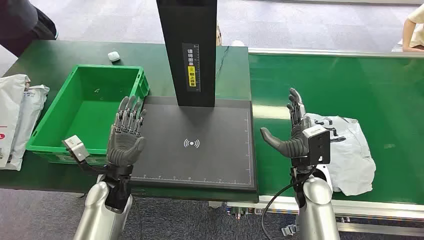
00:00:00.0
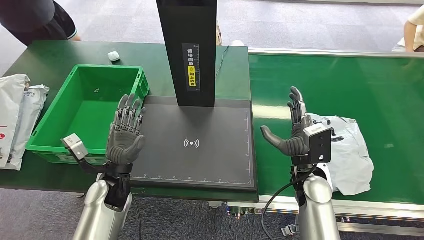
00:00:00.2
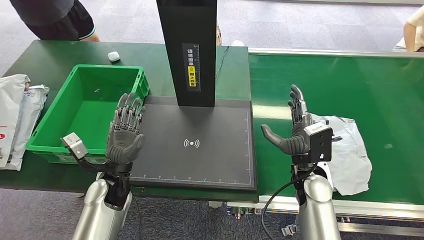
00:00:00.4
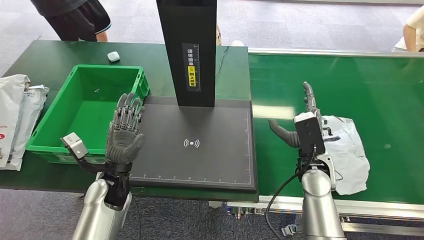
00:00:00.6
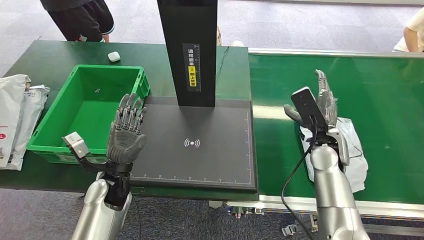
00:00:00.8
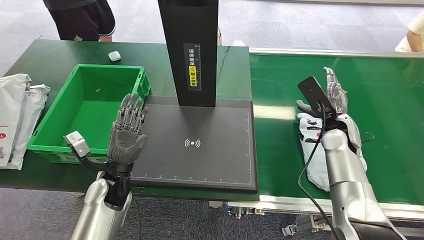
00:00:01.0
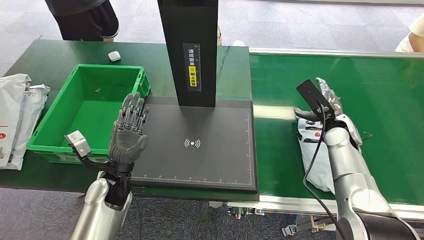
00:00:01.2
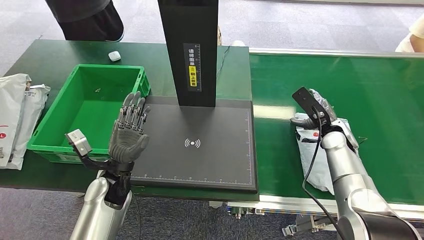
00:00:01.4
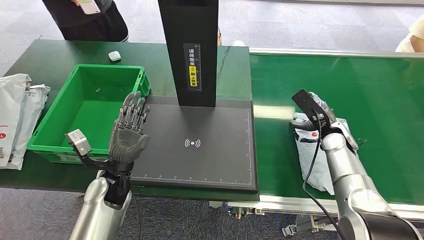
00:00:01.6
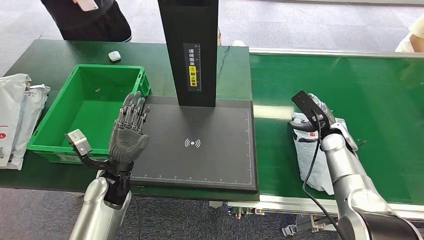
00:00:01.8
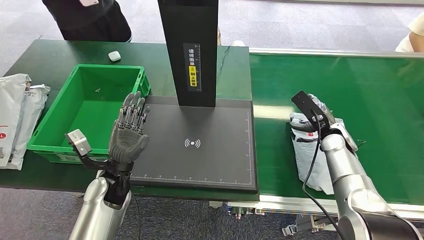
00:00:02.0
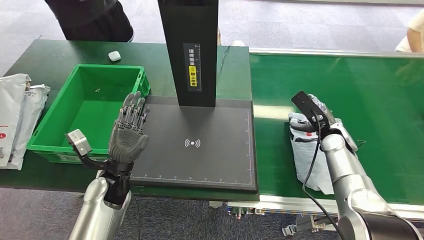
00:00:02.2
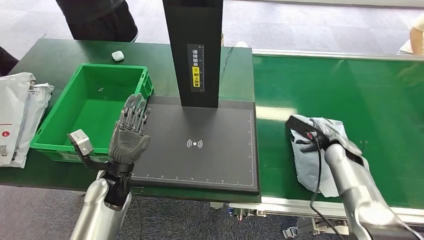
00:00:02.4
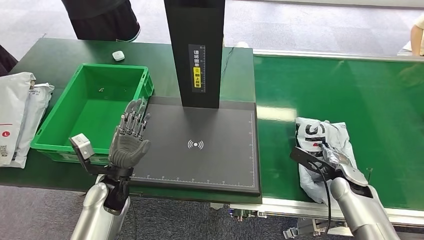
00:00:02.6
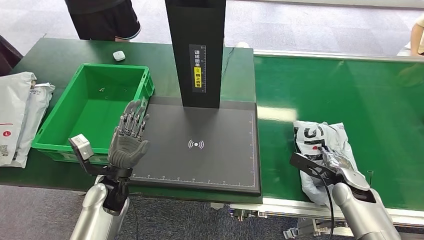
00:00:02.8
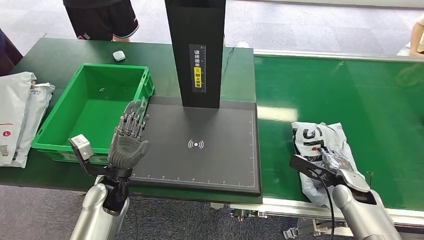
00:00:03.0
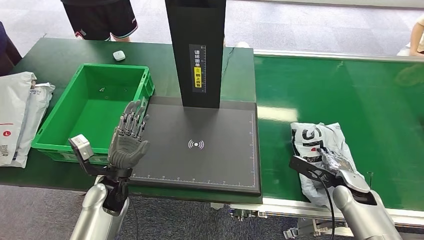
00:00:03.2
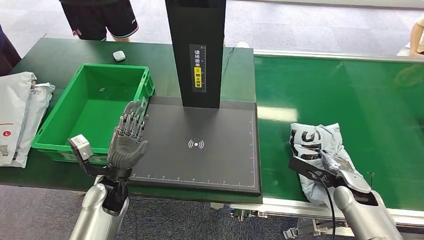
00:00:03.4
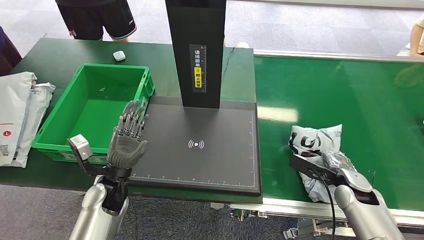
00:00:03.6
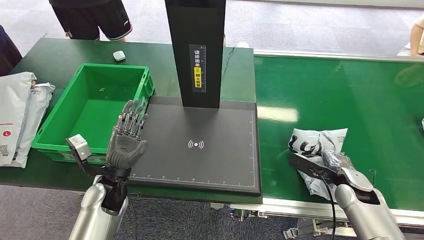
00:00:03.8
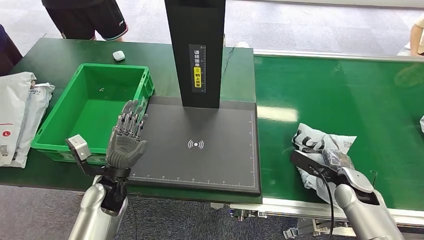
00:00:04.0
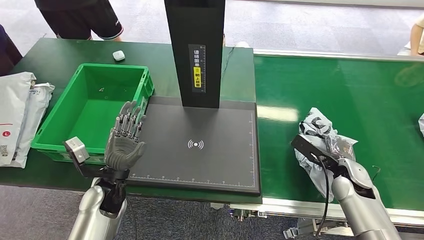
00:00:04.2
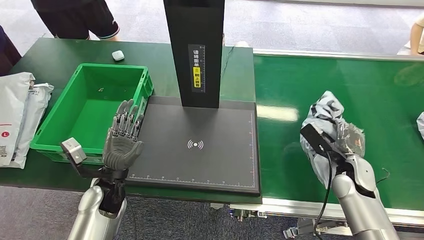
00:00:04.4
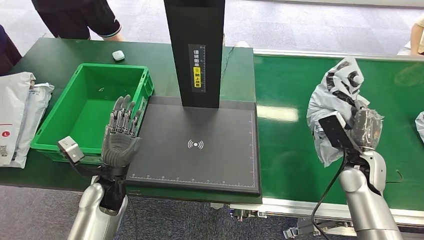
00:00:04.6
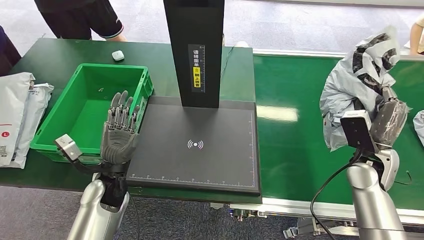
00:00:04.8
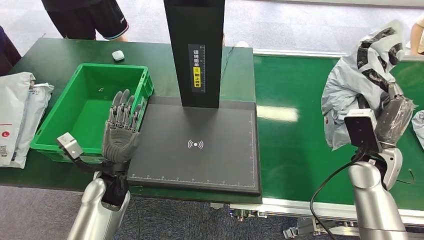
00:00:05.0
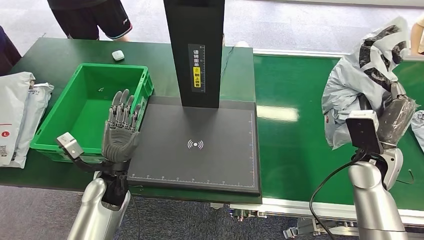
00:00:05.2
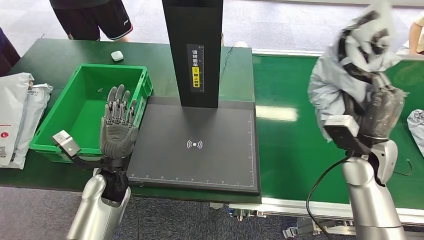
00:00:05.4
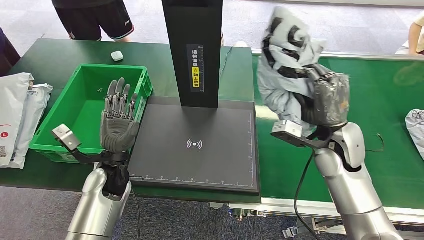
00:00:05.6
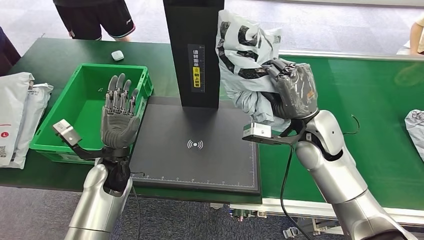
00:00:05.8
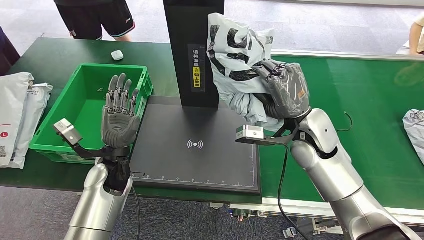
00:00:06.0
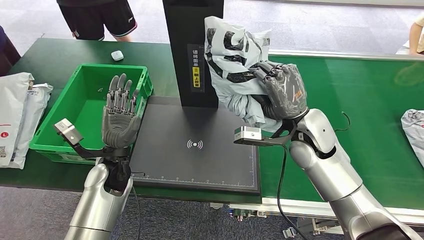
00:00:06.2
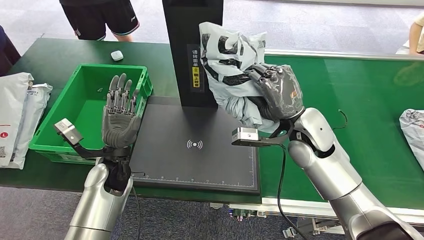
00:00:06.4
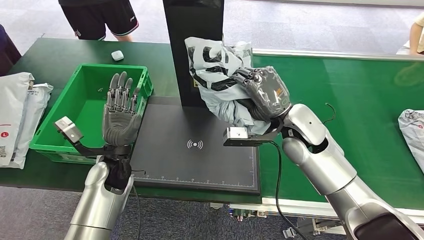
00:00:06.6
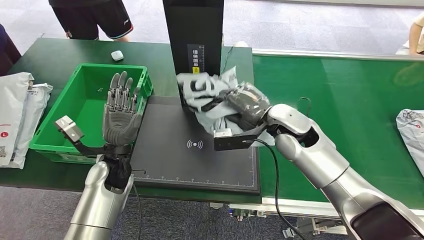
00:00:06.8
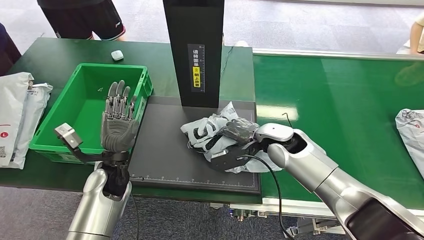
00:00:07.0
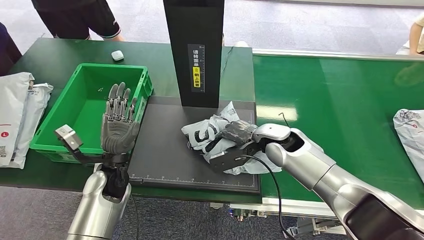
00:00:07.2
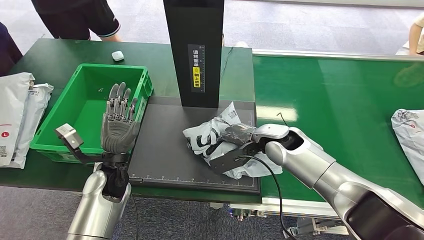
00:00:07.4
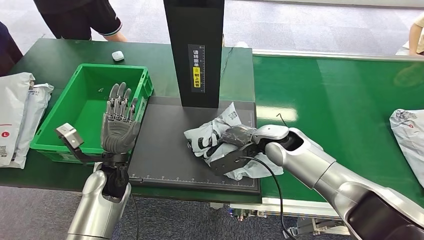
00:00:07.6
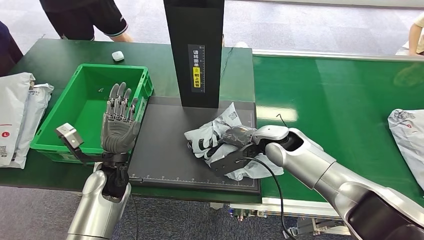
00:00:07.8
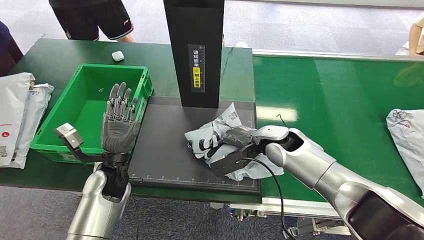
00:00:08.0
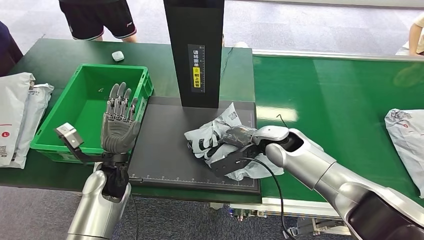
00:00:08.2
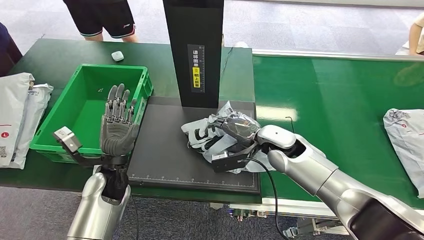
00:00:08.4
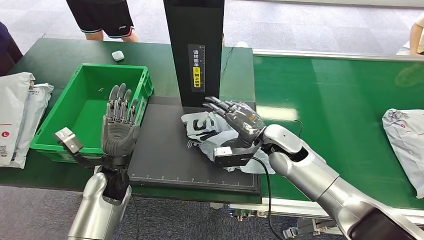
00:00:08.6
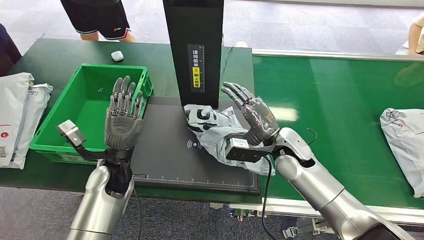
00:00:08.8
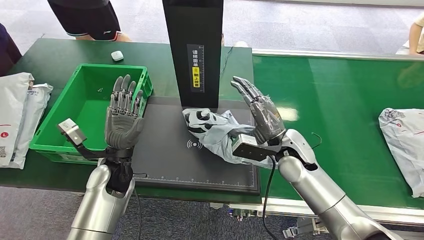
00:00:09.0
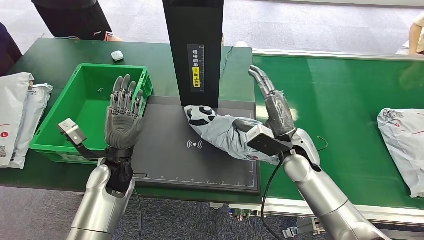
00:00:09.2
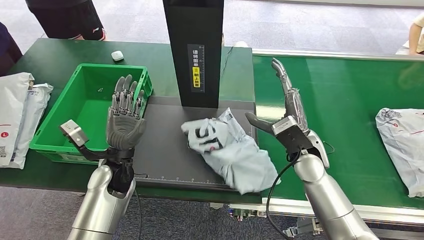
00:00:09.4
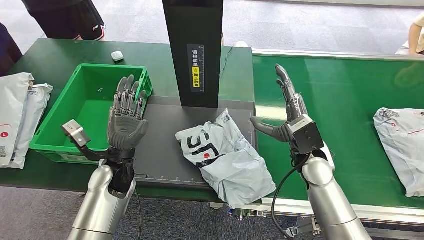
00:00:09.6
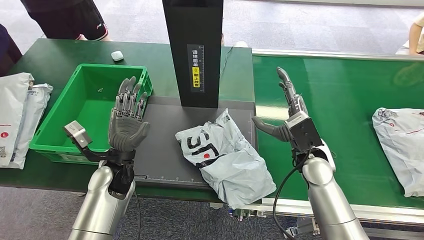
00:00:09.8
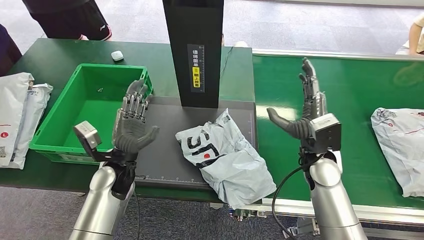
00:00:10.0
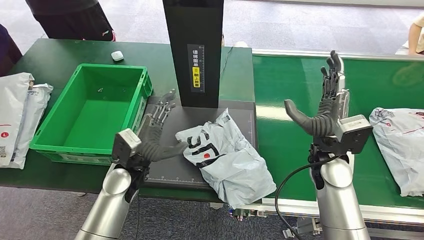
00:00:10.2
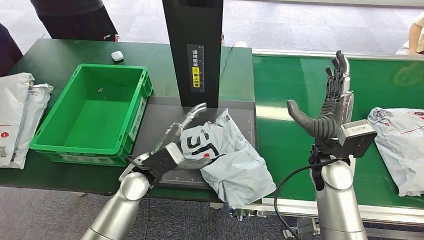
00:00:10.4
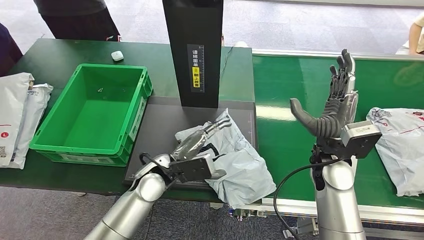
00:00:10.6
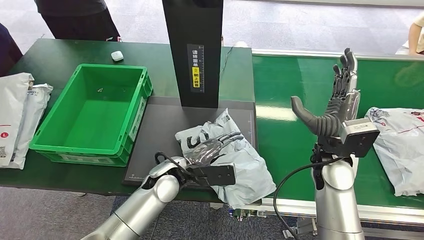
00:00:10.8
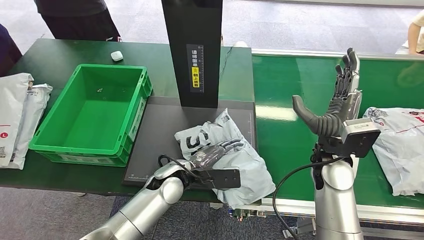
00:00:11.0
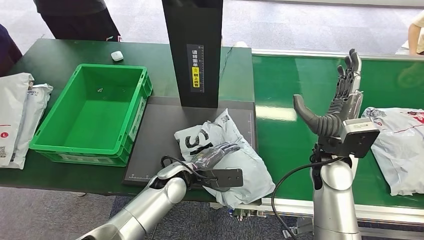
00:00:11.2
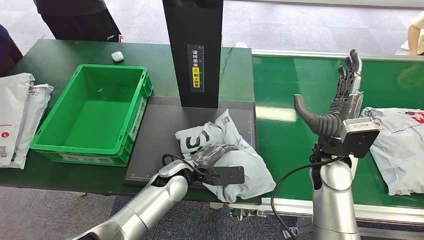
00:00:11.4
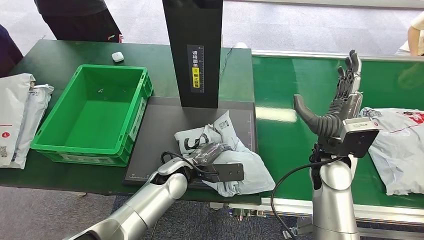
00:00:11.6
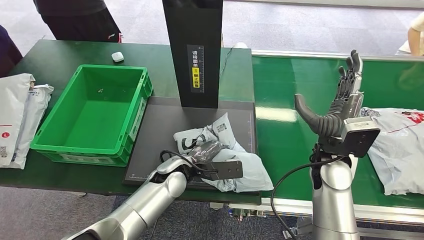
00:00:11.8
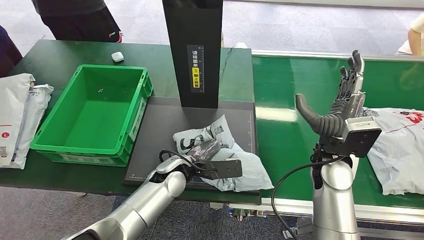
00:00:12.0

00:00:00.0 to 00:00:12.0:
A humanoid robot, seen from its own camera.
Step, 00:00:00.0 to 00:00:04.8: Pick up the package from the conveyor belt.
Step, 00:00:05.2 to 00:00:09.4: Place the package onto the inbound machine.
00:00:03.0 to 00:00:04.4: The right hand ends up some 5 cm from where it was.

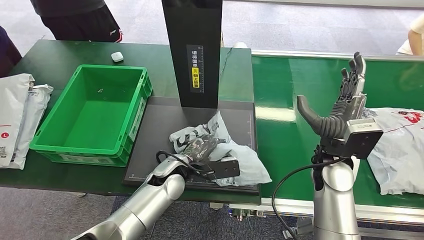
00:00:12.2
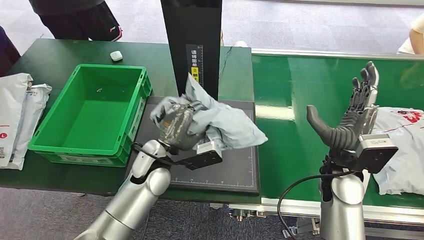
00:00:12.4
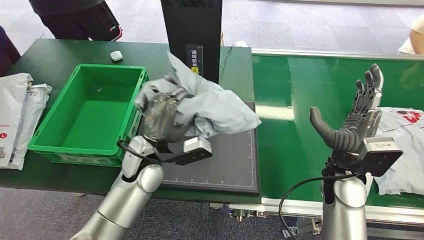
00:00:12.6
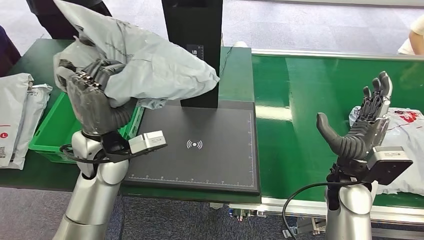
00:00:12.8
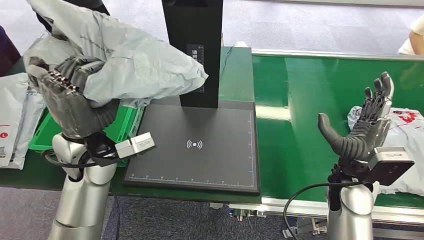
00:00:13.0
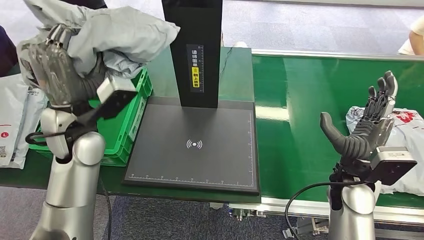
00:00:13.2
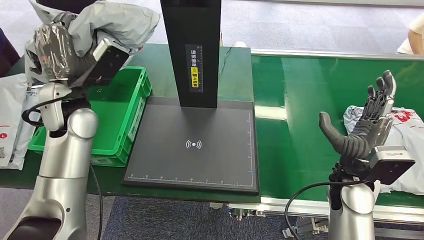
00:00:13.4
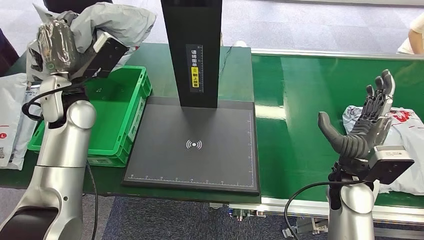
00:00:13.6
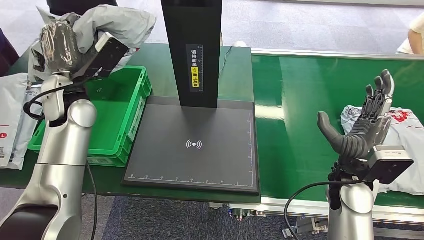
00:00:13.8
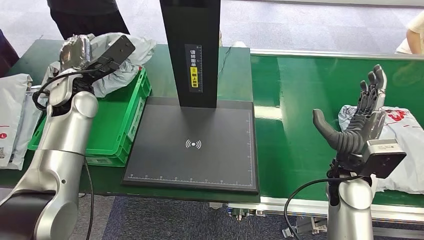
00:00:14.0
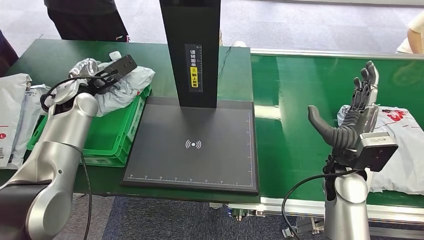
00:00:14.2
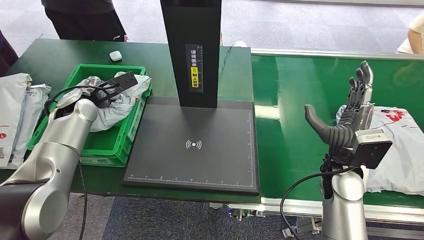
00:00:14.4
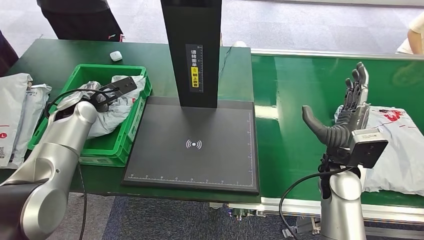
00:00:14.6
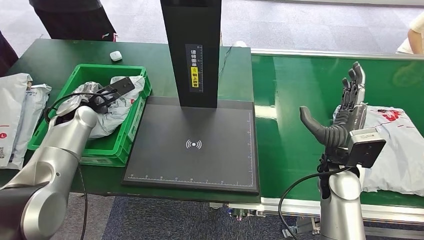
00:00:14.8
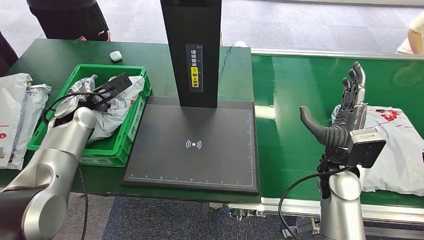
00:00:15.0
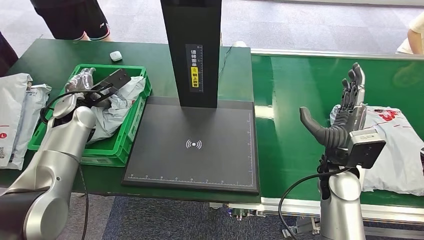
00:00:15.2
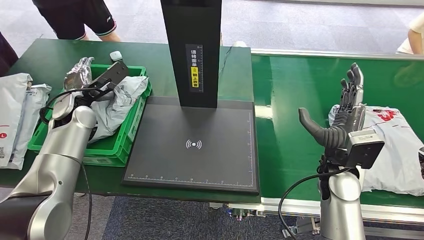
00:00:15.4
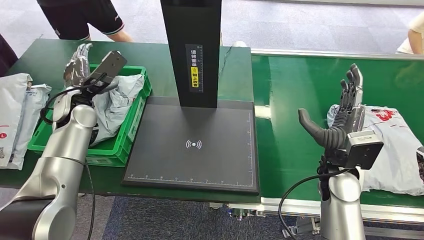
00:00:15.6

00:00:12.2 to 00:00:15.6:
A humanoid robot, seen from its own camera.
Step, 00:00:12.6 to 00:00:15.6: Place the package into the parcel locker.
